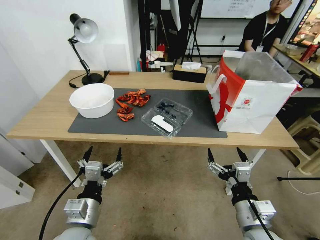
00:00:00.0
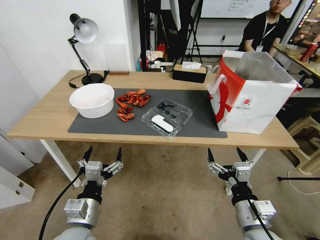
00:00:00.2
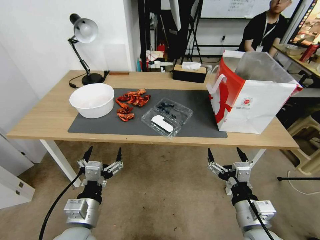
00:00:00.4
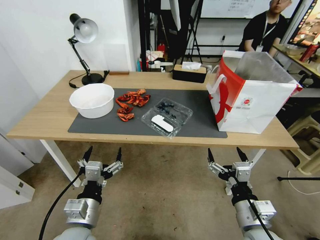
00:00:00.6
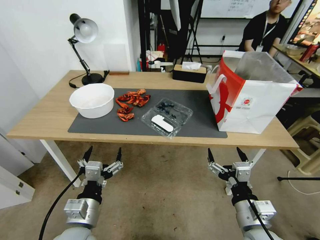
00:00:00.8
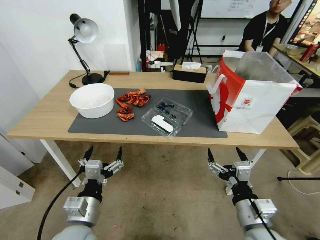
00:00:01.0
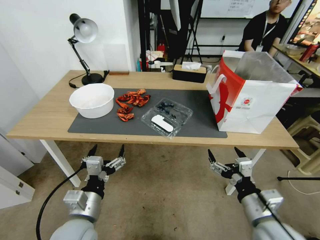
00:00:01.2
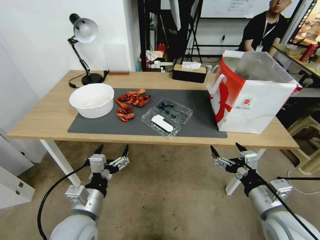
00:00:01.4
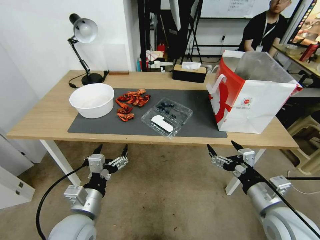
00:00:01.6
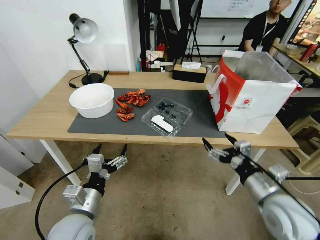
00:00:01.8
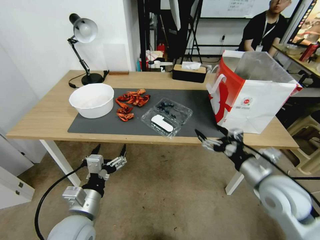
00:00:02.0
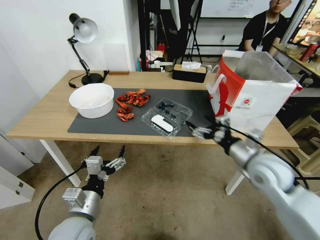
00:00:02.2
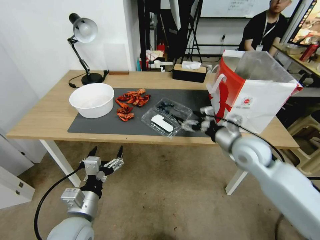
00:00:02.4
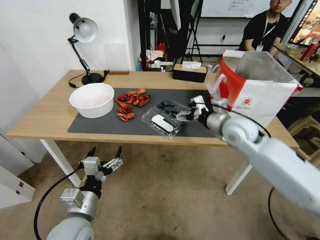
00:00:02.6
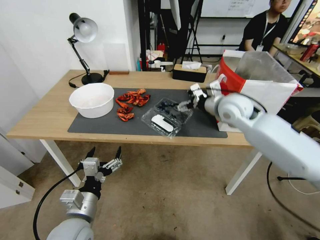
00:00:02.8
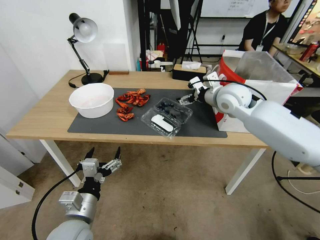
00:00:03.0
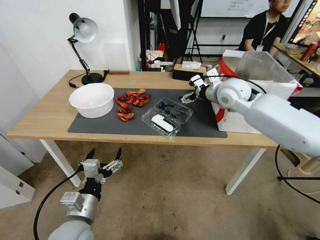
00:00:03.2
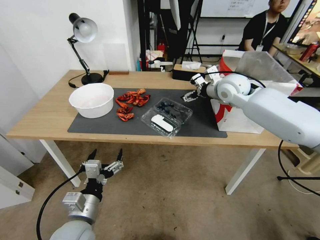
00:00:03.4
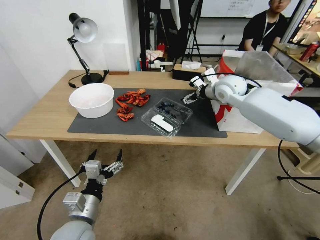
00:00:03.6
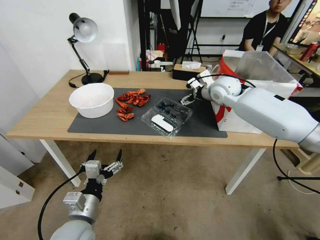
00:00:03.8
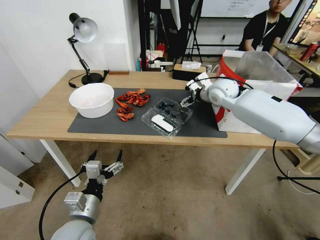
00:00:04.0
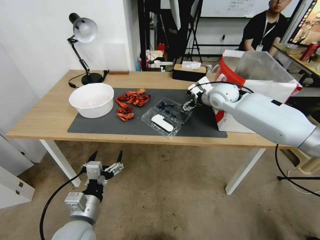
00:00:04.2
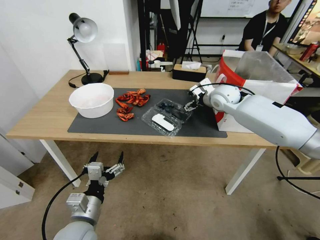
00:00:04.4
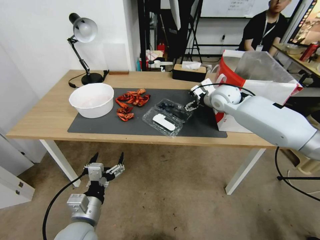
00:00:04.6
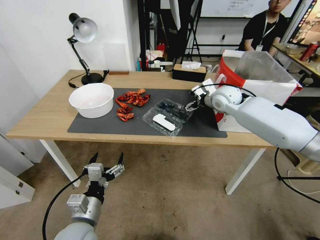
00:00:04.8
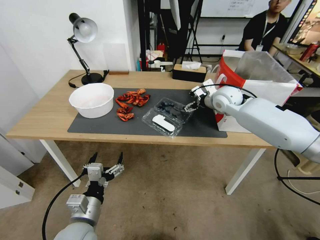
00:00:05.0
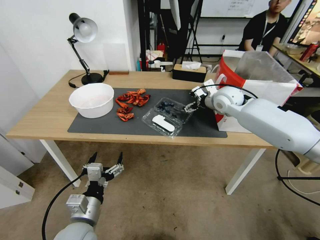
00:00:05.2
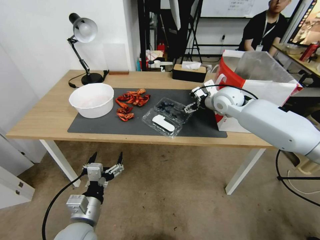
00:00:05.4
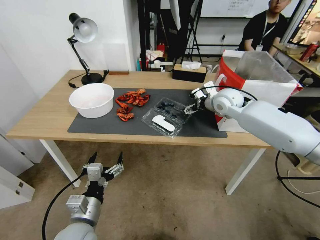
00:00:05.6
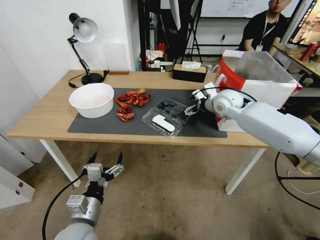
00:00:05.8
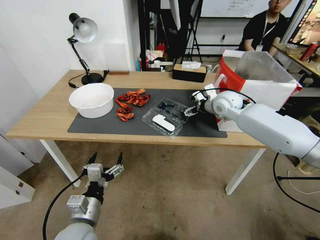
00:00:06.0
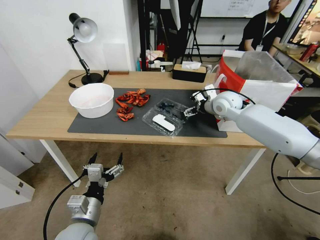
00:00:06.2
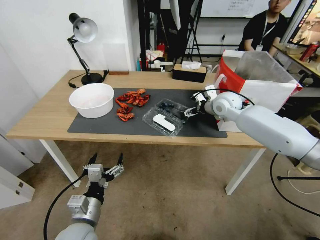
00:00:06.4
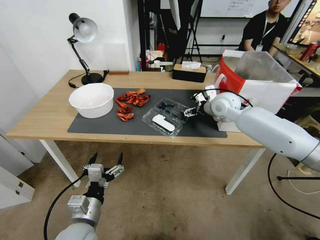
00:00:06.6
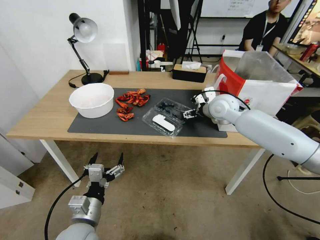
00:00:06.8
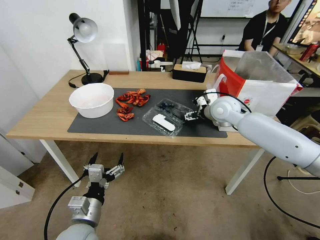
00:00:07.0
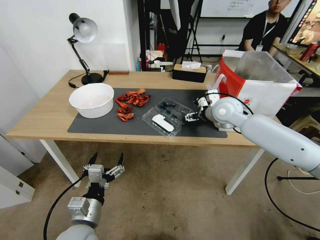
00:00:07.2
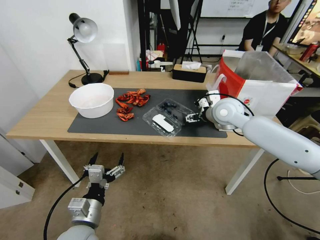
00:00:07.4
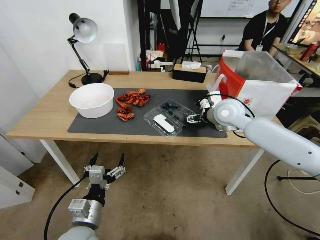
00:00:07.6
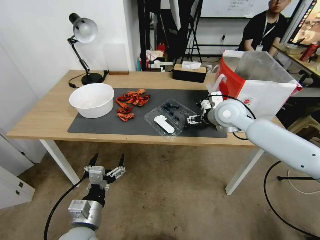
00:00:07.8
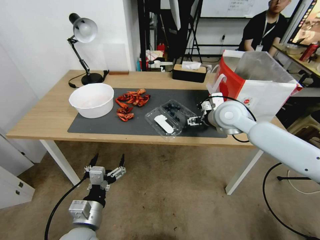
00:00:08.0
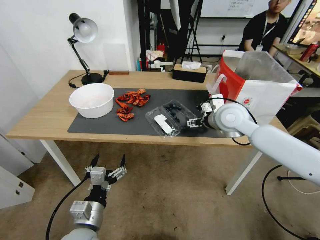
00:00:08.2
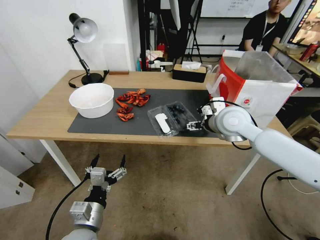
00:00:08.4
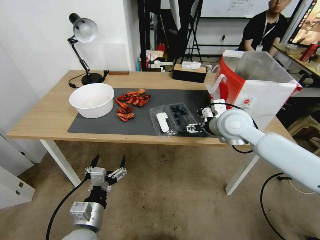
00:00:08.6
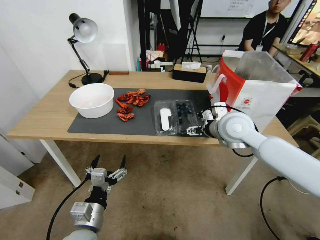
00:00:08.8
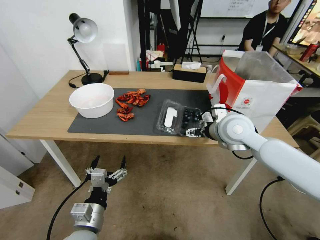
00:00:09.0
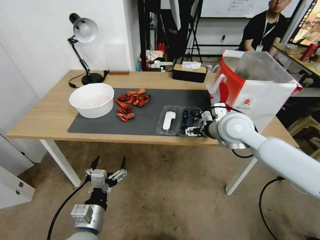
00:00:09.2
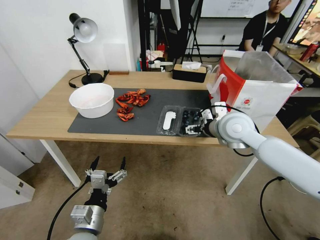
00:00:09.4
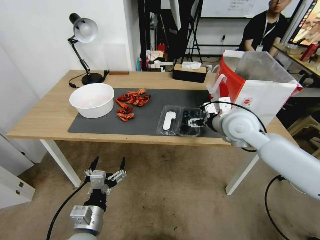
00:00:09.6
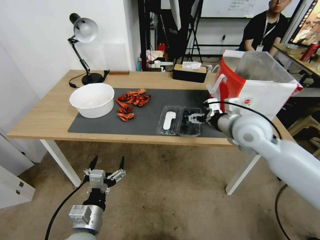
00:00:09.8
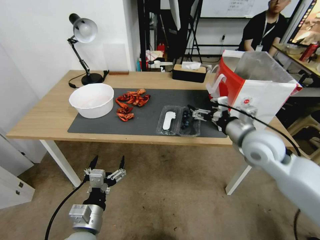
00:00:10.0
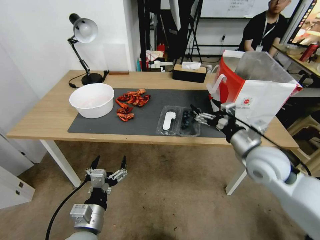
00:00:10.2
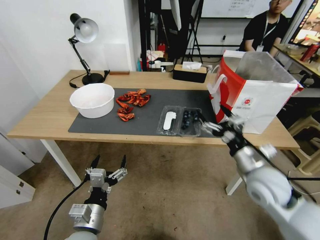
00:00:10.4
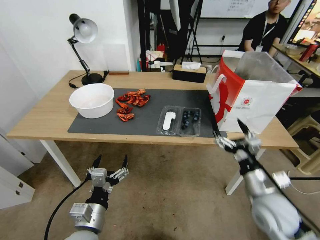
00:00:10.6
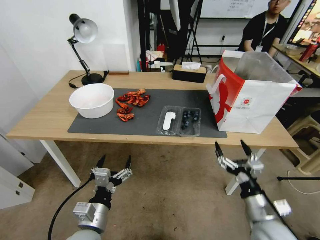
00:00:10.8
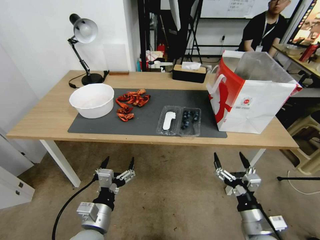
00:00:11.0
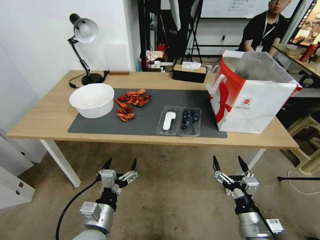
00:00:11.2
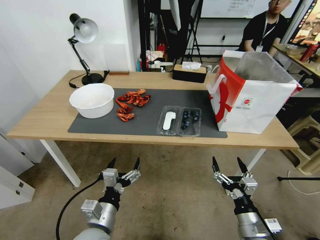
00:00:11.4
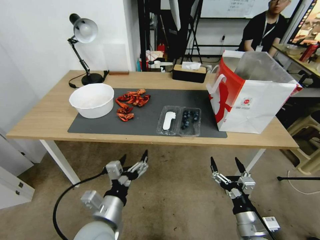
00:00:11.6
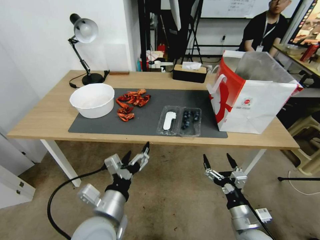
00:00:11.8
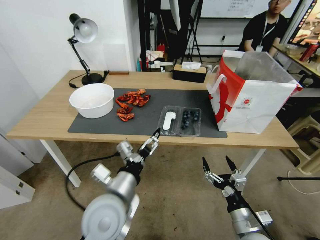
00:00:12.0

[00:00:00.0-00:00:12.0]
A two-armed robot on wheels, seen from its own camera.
Task of the whole recording: Close the takeout container lid, then place the container into the takeout bag.
00:00:01.6 to 00:00:03.0: The right gripper shifts approximately 35 cm forward and upward.
00:00:03.0 to 00:00:04.4: The right gripper heads forward, covering roughly 5 cm.
00:00:04.4 to 00:00:06.0: The grippers stay close to where they were, moving slightly.
00:00:06.0 to 00:00:07.6: The right gripper travels backward by roughly 5 cm.
00:00:07.6 to 00:00:09.0: The right gripper heads backward, covering approximately 10 cm.
00:00:09.0 to 00:00:10.4: The right gripper goes approximately 15 cm backward, downward and to the right.
00:00:10.4 to 00:00:12.0: The right gripper travels backward and downward by about 20 cm. The left gripper goes approximately 15 cm upward, to the right and forward.

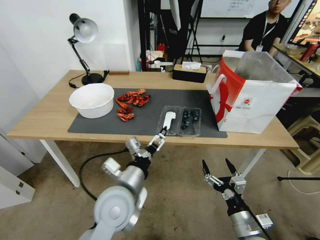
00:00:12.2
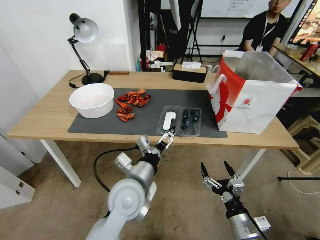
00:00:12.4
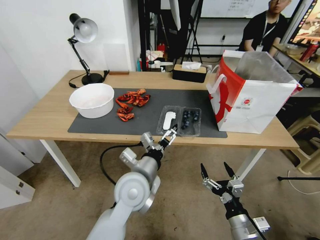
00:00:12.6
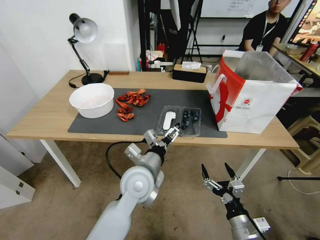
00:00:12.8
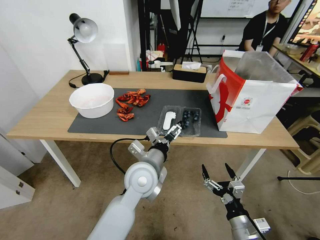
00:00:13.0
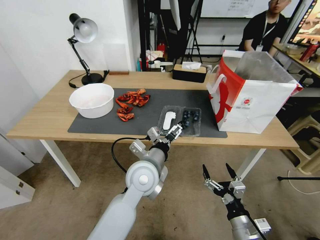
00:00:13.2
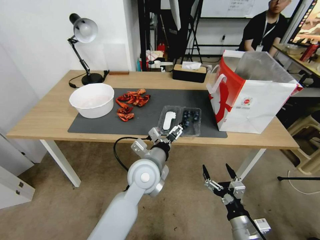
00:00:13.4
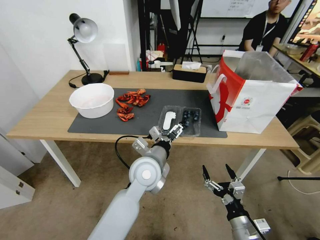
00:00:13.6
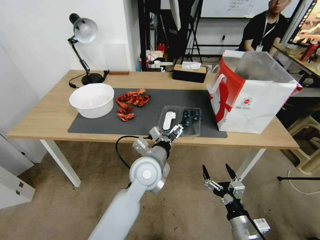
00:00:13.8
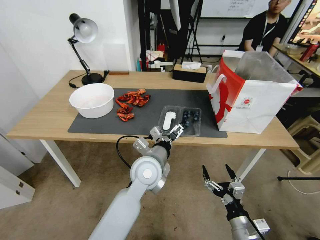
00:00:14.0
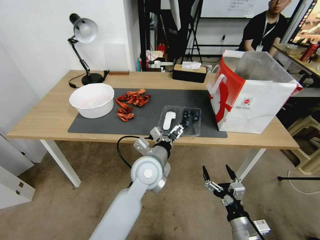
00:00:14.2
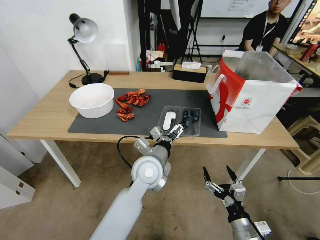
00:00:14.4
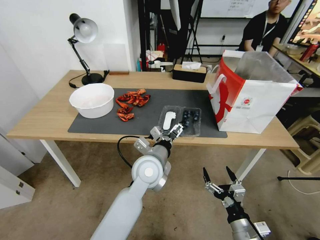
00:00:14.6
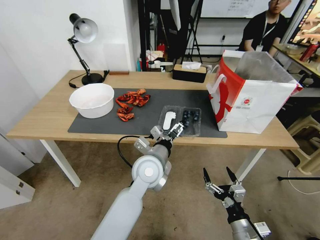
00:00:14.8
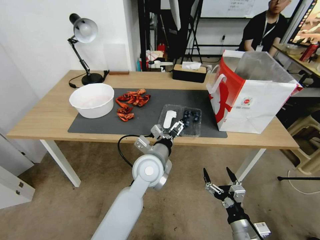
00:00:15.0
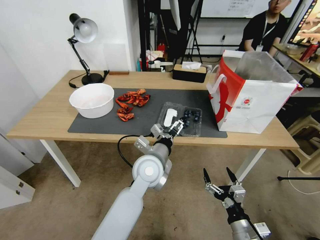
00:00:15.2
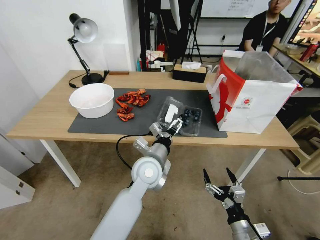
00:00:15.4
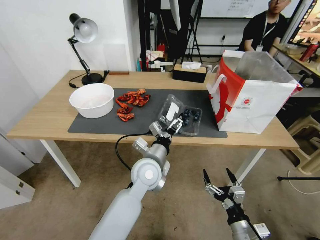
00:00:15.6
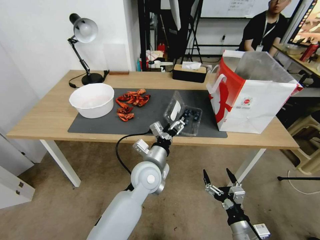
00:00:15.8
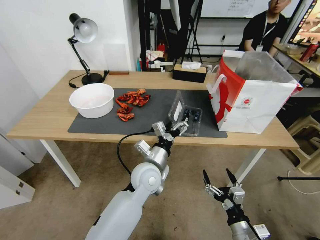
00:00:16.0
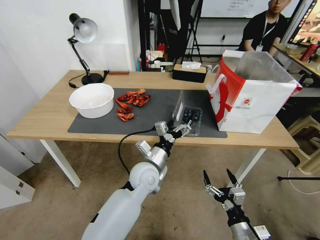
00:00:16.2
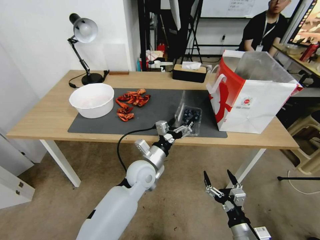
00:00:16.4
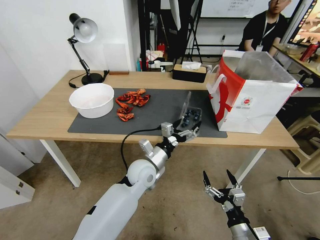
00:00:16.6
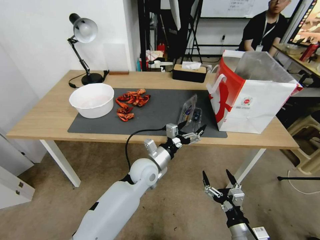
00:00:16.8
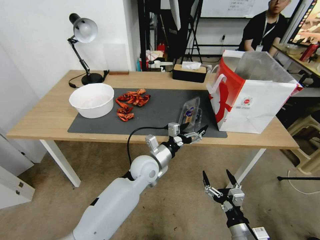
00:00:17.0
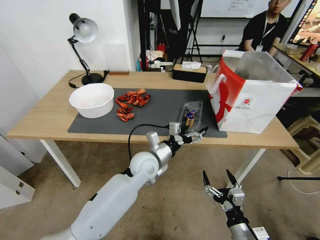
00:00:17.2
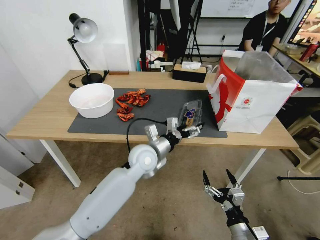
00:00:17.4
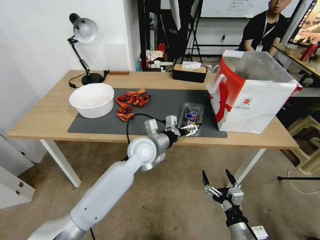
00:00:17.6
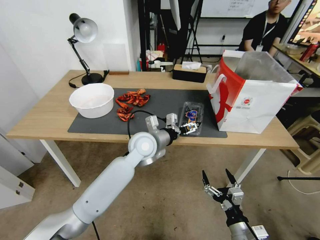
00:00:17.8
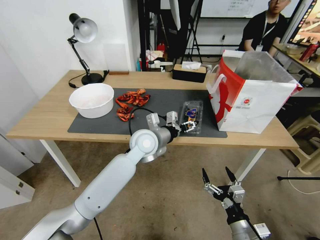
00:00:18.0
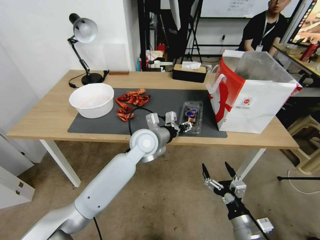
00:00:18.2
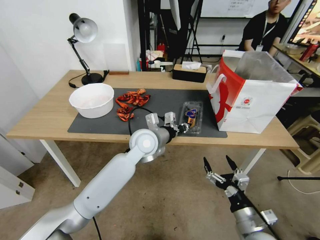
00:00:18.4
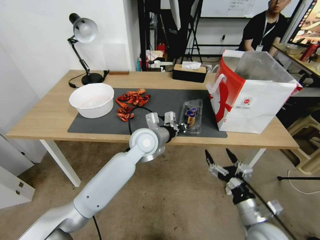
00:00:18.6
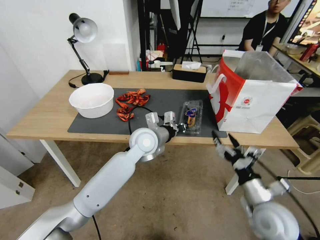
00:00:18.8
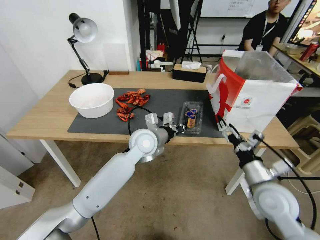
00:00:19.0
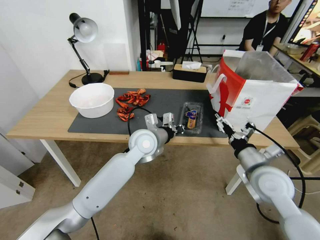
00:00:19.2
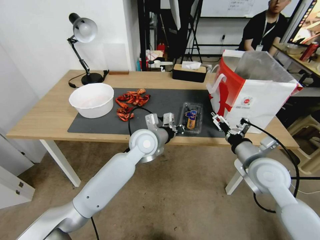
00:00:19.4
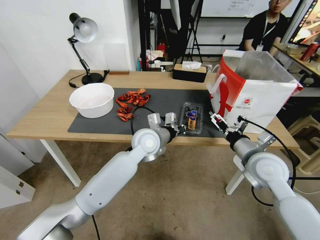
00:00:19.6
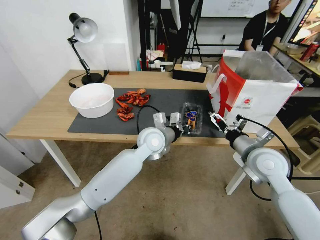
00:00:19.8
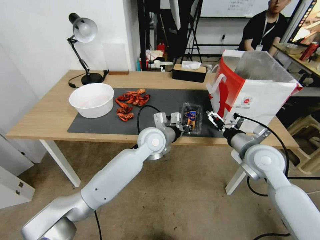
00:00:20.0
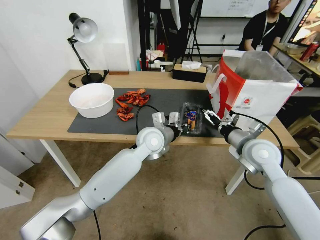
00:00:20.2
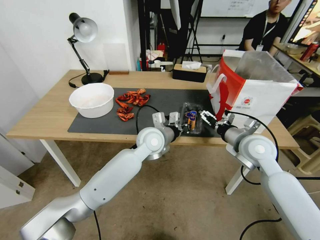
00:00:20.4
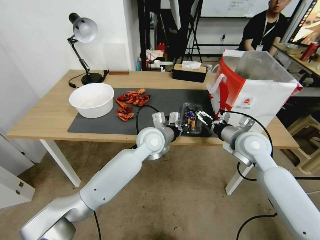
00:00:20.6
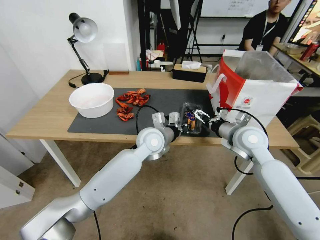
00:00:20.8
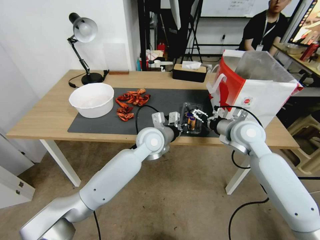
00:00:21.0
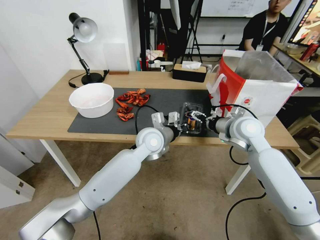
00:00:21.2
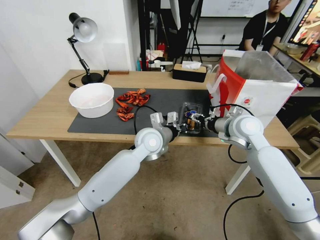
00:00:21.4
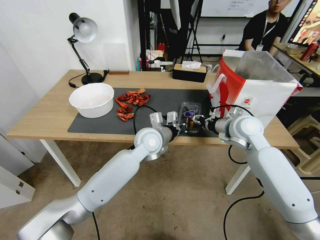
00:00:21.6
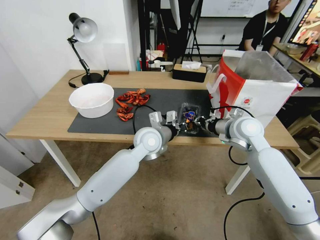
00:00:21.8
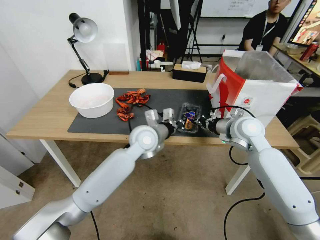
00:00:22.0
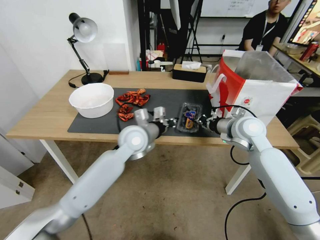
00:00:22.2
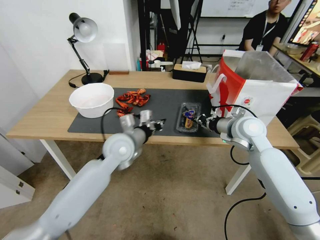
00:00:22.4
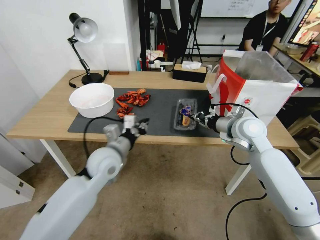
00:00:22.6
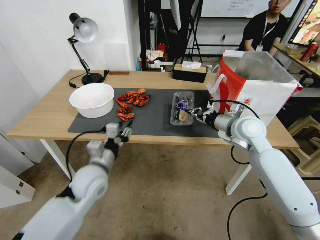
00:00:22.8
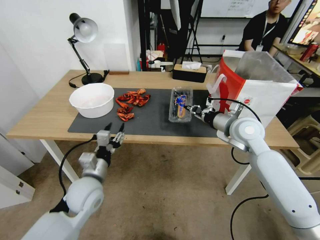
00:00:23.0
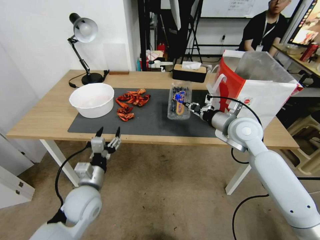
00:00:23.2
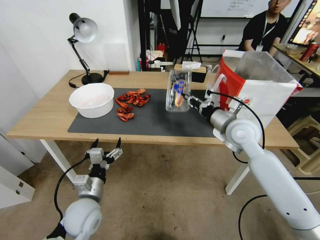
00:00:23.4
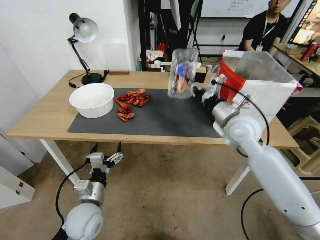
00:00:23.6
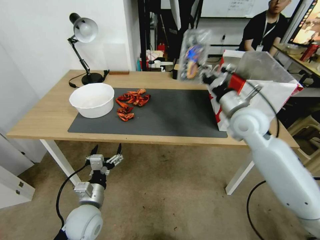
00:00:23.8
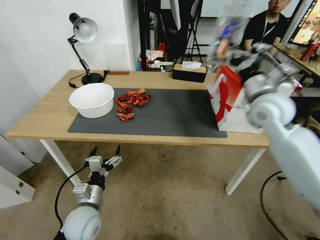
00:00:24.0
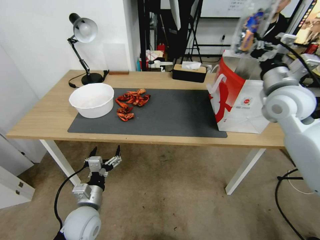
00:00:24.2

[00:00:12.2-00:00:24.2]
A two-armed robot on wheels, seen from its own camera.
Task of the whole recording: Close the takeout container lid, then place the container into the takeout bag.
00:00:12.2 to 00:00:13.8: The left gripper travels forward and to the right by approximately 10 cm.
00:00:13.8 to 00:00:15.2: The grippers move only a little.
00:00:15.2 to 00:00:16.6: The left gripper goes some 5 cm downward.
00:00:16.6 to 00:00:18.2: The left gripper travels upward and forward by roughly 10 cm, and closes its fingers.
00:00:18.2 to 00:00:19.8: The right gripper travels forward and upward by some 25 cm, while the left gripper closes up.
00:00:19.8 to 00:00:21.2: The right gripper moves forward, roughly 10 cm.
00:00:21.2 to 00:00:22.6: The left gripper shifts about 15 cm to the left and backward; the right gripper closes up.
00:00:22.6 to 00:00:24.2: The left gripper shifts roughly 20 cm backward, downward and to the left, and opens, while the right gripper shifts roughly 15 cm upward and to the right.
